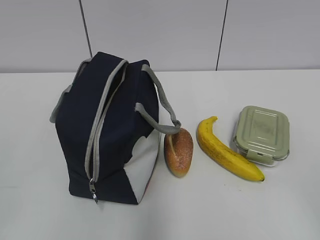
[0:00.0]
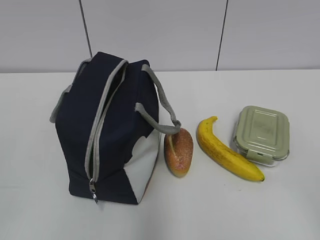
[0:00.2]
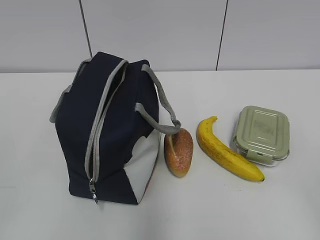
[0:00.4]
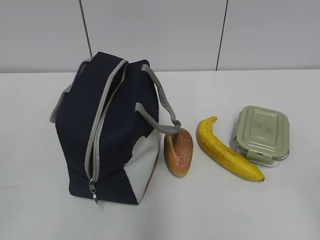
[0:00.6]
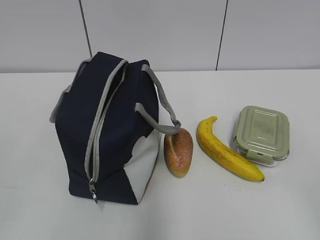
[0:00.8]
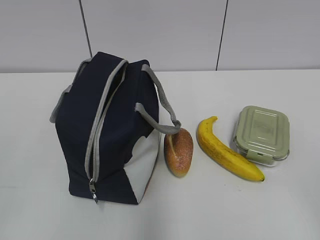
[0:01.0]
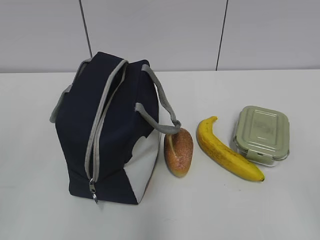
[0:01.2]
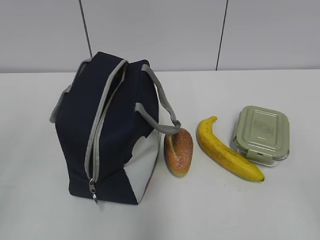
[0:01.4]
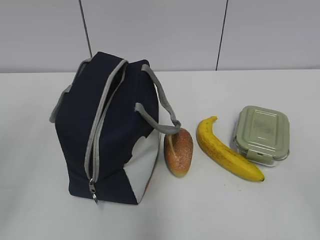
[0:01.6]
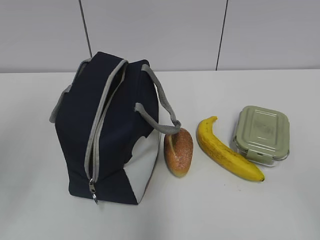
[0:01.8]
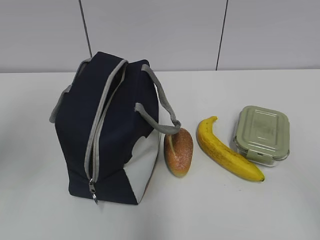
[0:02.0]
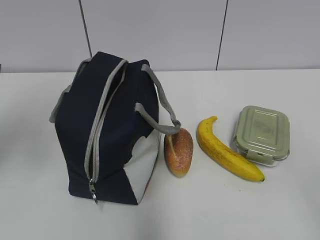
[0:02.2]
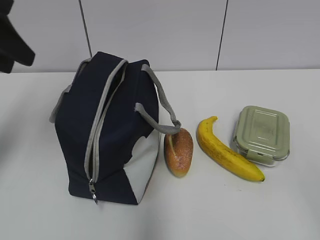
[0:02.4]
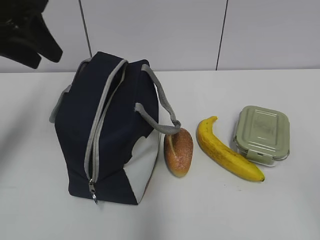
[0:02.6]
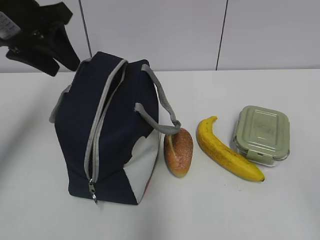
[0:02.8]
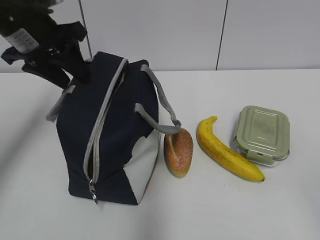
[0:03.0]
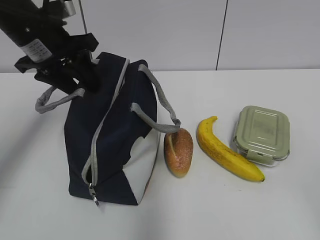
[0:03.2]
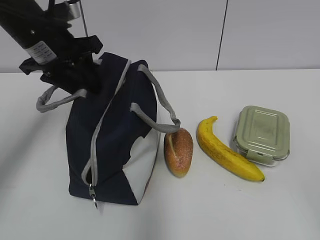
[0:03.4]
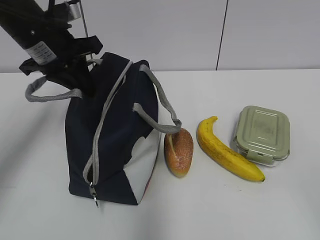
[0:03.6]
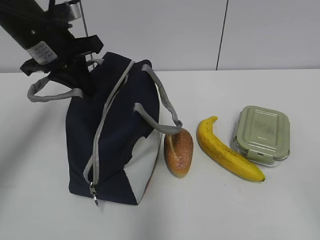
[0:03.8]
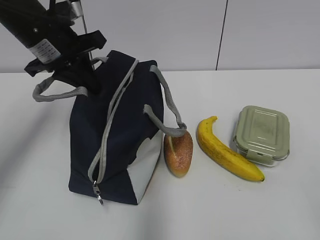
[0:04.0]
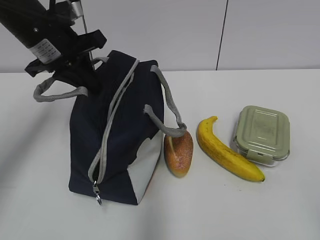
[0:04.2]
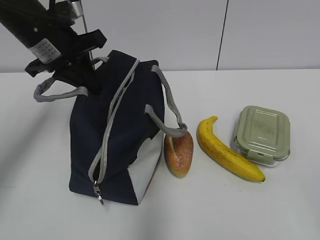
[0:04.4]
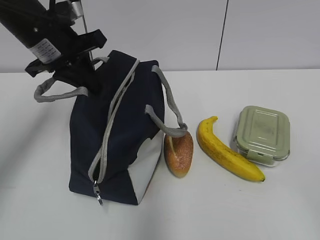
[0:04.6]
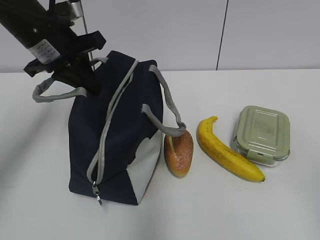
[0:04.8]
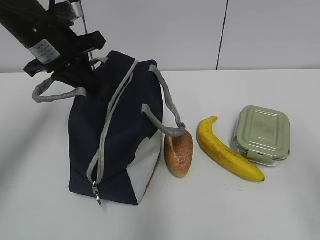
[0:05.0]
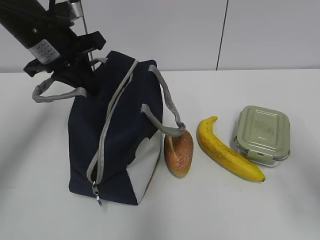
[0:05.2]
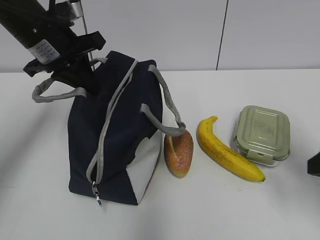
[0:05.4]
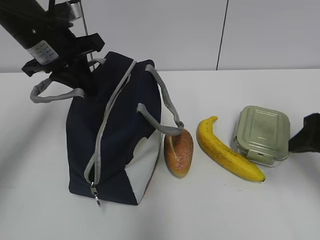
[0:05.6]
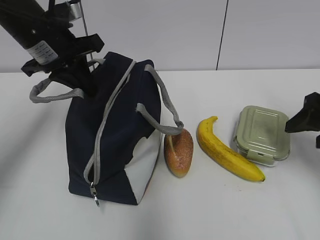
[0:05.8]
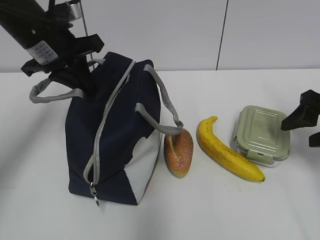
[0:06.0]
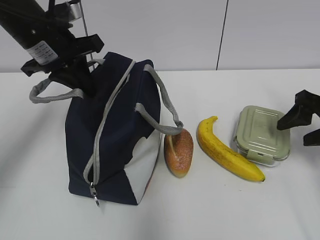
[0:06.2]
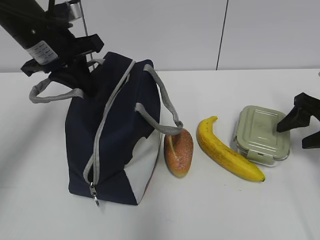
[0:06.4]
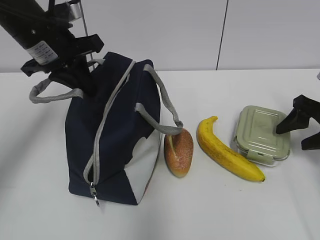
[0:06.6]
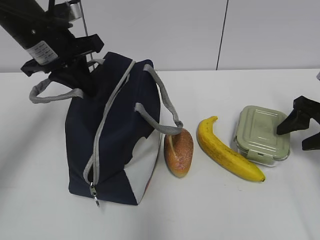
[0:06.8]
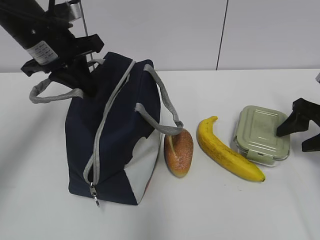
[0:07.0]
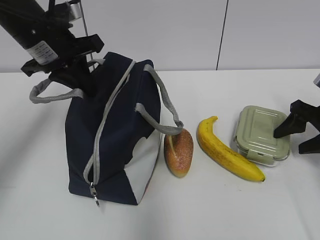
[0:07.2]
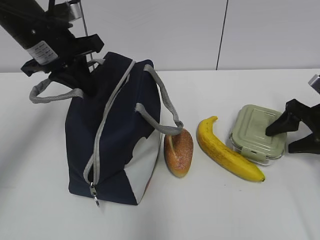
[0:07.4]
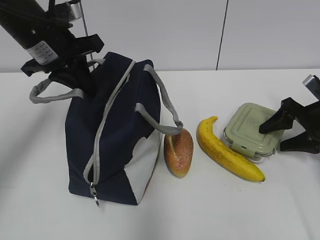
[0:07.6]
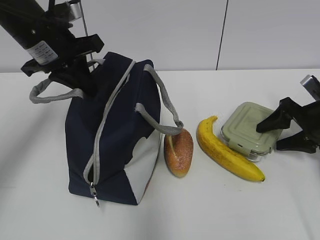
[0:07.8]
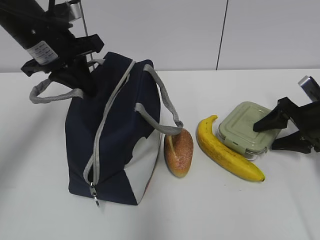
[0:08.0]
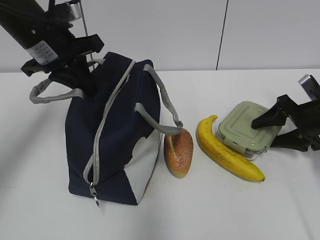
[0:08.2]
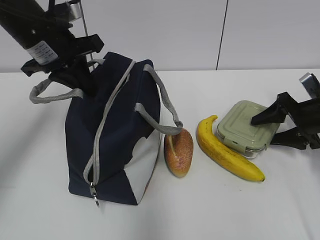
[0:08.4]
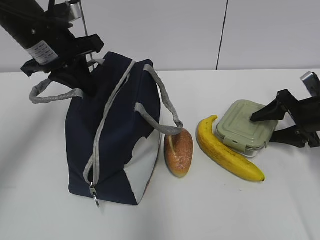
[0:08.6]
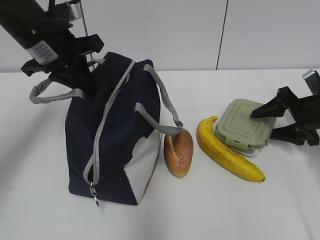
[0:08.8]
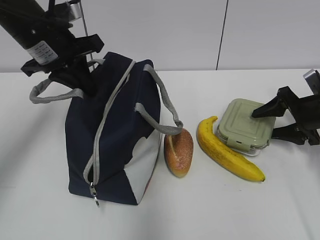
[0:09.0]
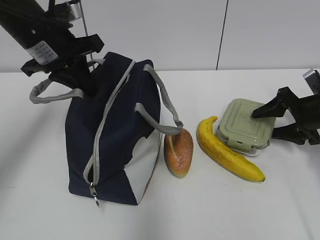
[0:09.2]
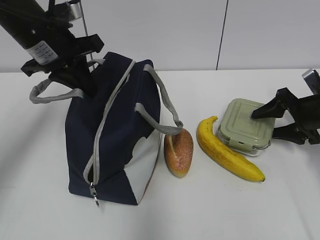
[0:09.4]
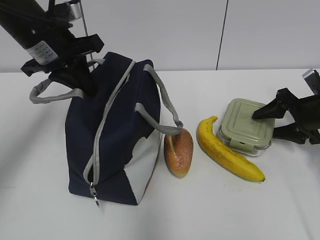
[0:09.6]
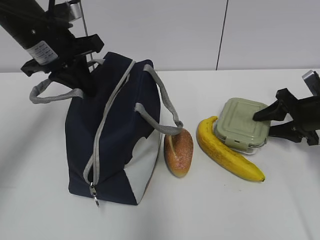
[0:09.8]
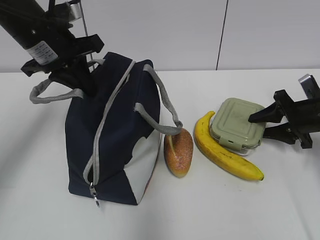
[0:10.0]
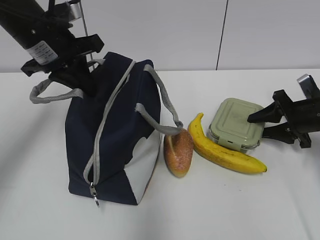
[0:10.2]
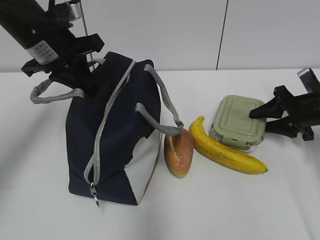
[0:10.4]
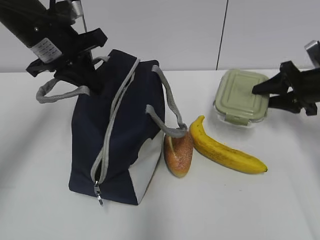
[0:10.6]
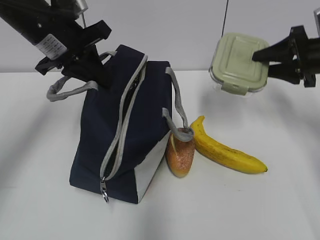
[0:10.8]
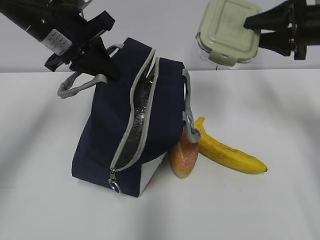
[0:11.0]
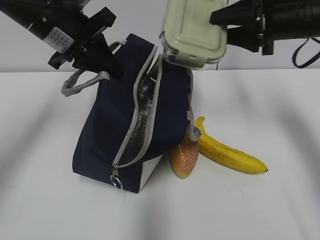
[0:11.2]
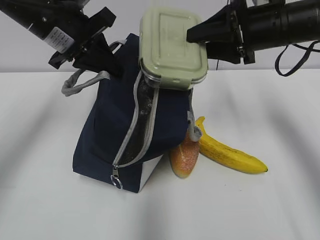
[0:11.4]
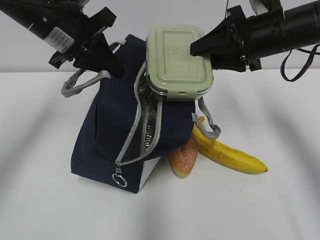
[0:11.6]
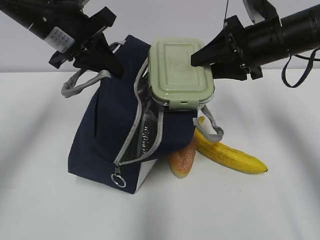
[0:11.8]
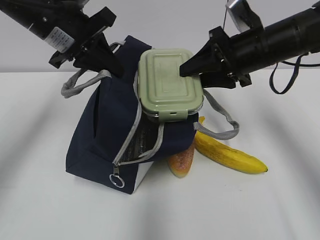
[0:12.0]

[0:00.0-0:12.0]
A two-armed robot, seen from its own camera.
Step, 0:00.0 to 0:10.2: Grab the lunch box with your right hand.
0:01.6 to 0:03.0: The left gripper shifts about 30 cm forward.
0:03.0 to 0:04.4: The left gripper closes up.
0:04.4 to 0:06.0: The right gripper is displaced forward by roughly 30 cm.
0:06.0 to 0:07.6: The right gripper heads downward and forward, covering approximately 10 cm.
0:07.6 to 0:10.4: There are only small adjustments of the grippers.
0:10.4 to 0:12.0: The right gripper moves to the left and upward, roughly 20 cm.

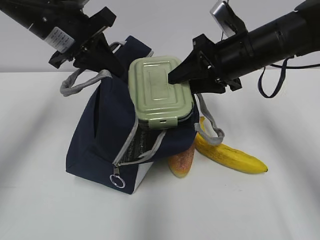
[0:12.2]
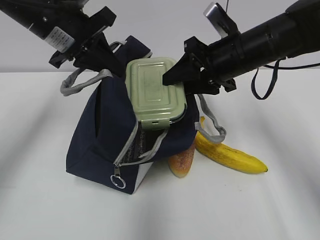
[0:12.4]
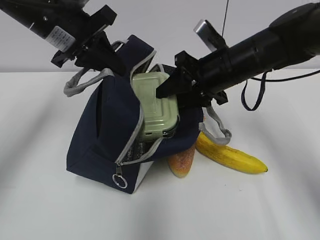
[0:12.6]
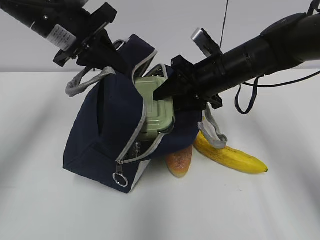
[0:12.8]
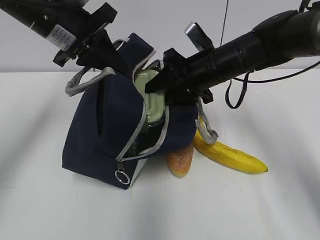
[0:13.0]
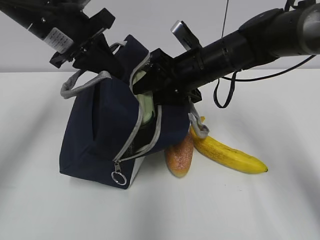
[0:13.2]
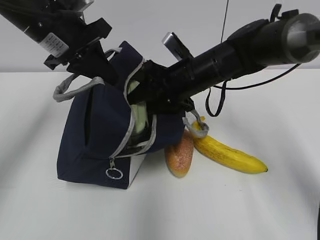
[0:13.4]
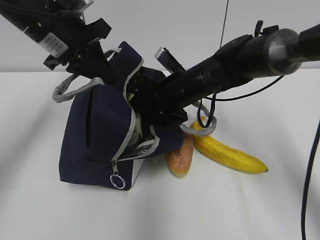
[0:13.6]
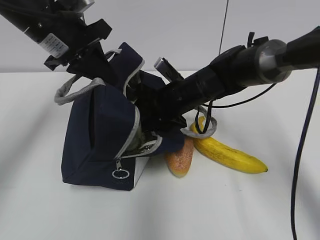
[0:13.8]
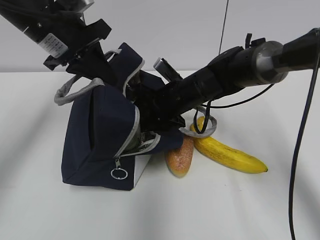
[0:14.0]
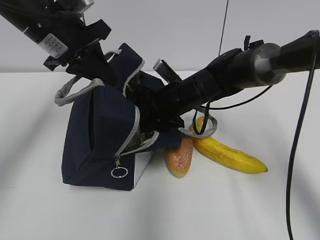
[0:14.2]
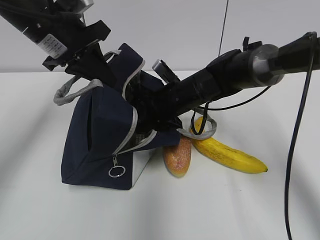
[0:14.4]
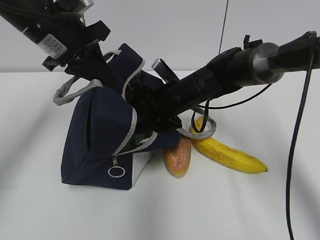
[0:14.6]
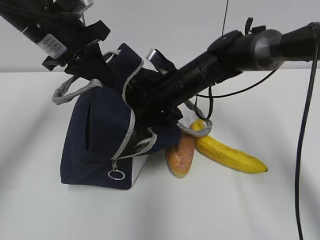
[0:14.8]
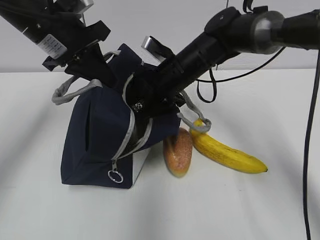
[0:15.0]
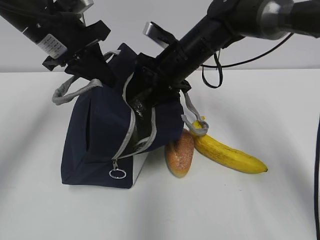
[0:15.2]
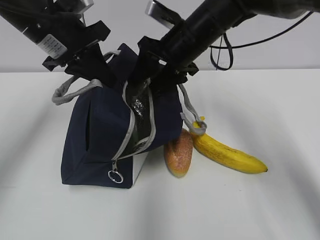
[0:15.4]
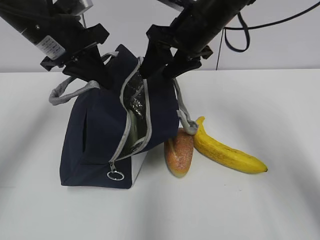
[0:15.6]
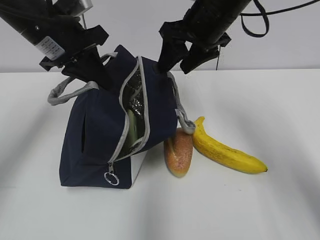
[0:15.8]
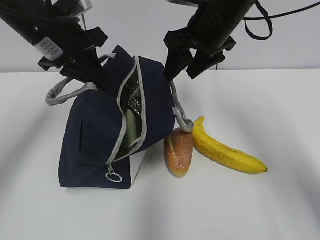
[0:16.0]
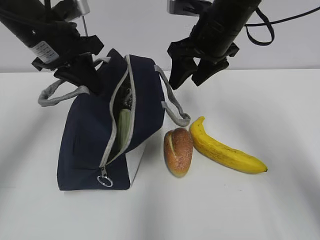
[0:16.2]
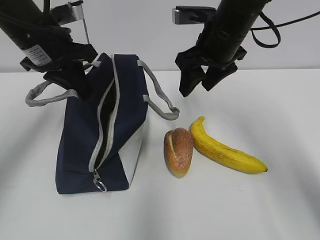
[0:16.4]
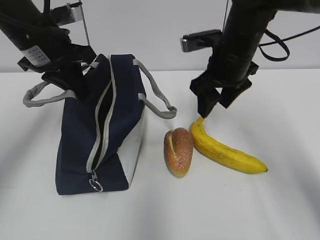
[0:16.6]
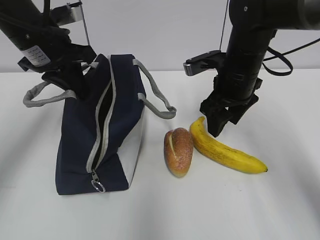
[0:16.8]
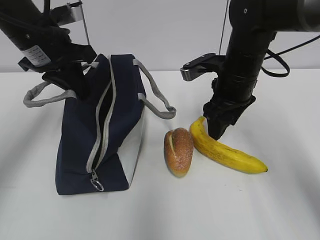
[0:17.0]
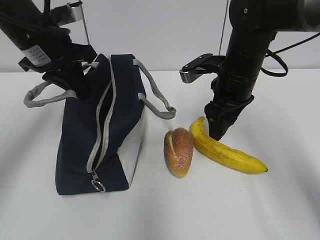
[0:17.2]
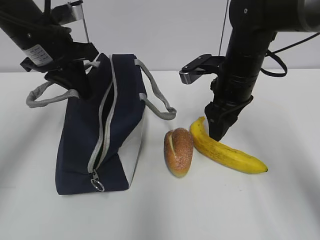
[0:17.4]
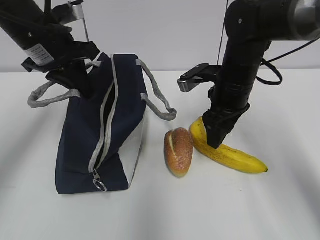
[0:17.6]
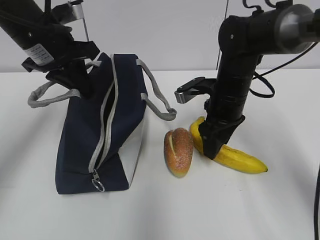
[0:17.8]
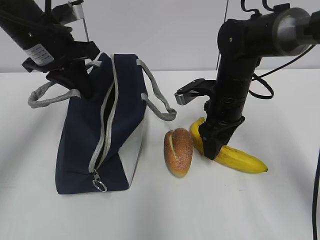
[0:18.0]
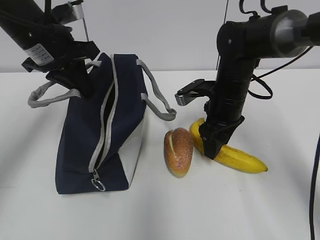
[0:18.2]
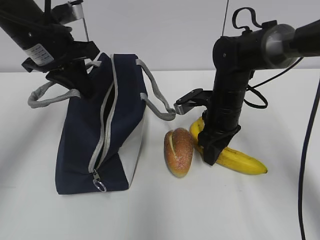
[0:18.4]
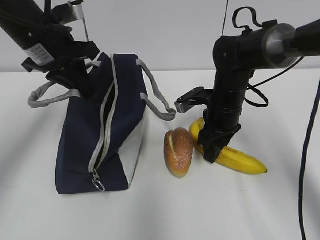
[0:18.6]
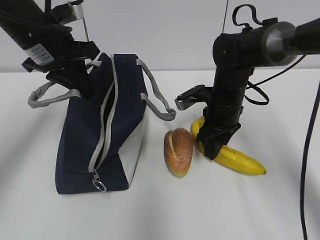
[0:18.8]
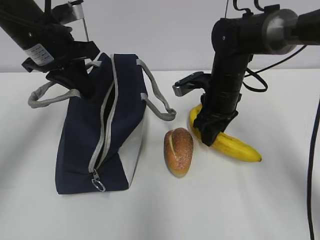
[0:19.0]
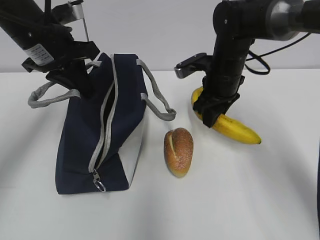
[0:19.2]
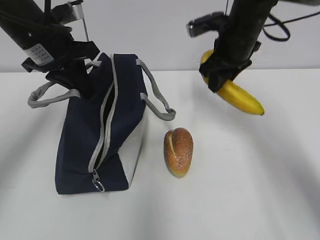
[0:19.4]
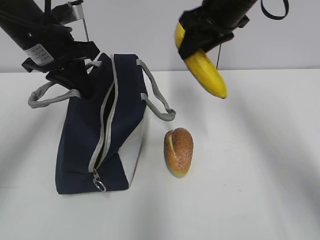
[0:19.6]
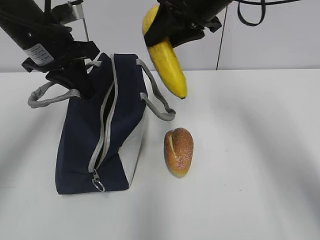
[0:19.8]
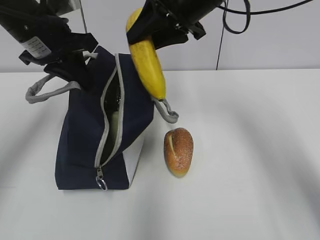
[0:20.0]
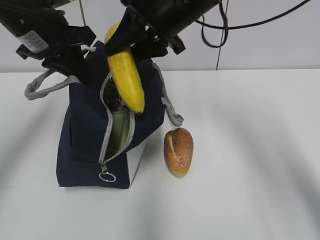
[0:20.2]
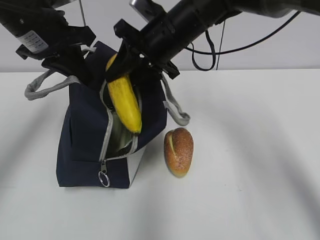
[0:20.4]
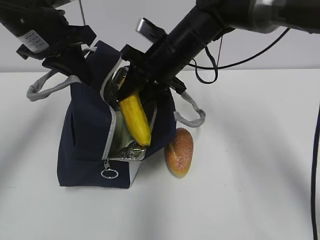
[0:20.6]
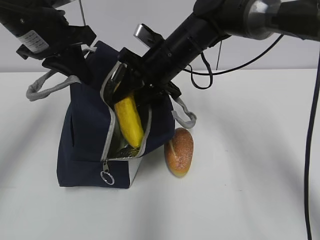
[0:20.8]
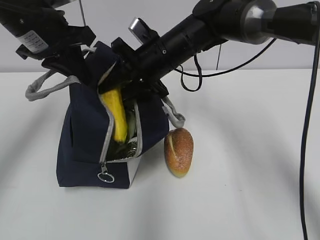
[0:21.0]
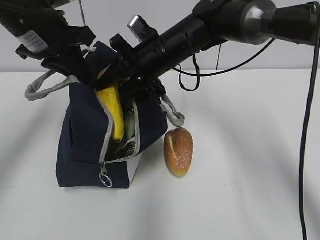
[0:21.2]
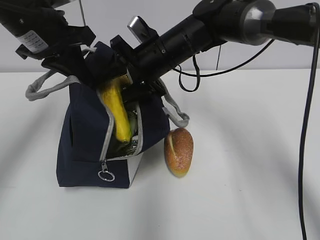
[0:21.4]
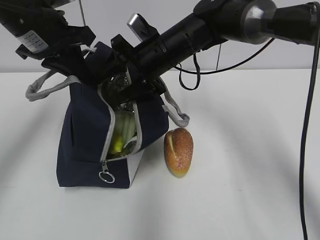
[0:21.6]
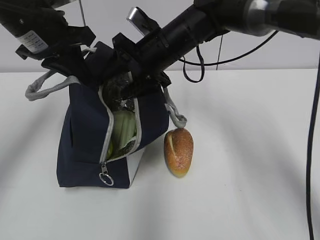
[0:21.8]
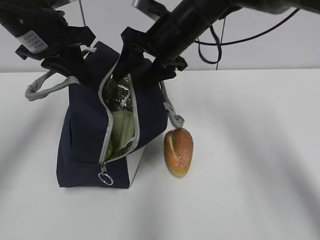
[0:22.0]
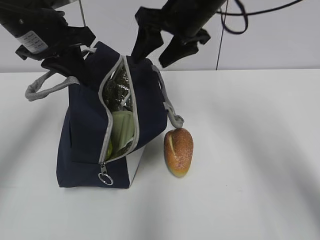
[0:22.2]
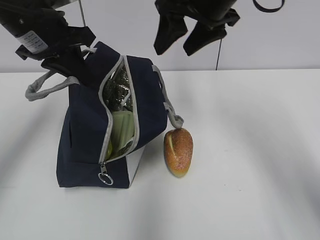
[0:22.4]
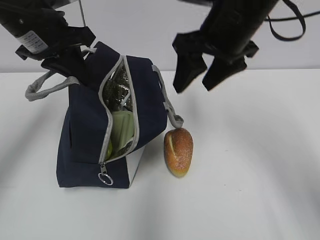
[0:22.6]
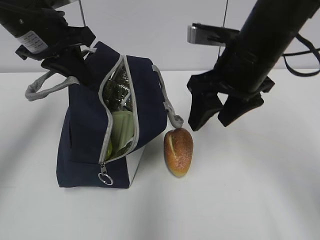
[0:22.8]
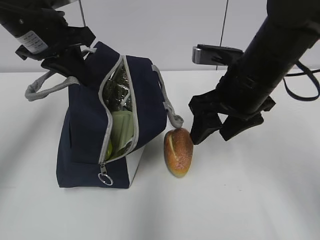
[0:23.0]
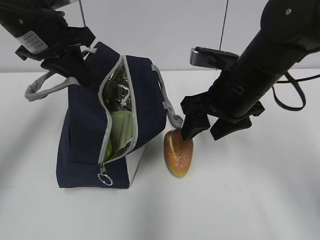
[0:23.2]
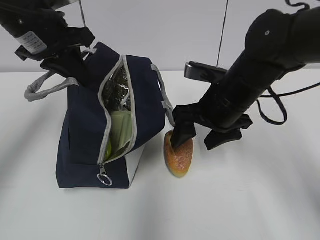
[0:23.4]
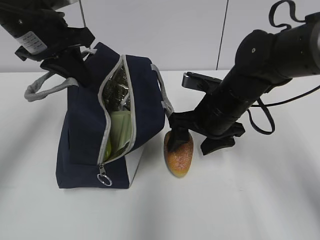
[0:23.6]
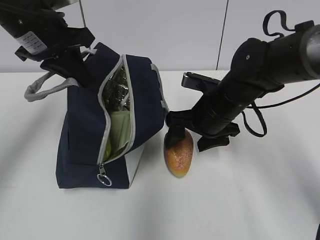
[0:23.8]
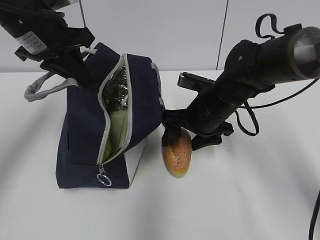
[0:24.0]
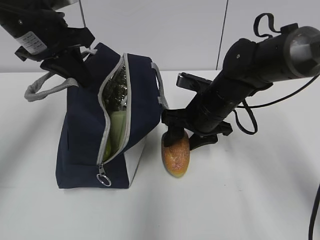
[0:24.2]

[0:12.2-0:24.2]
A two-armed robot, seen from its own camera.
Step, 0:12.2 to 0:14.6: Place it into the bag with your right hand.
Step, 0:14.8 to 0:18.6: Grab the banana with your right hand.
Step, 0:19.0 to 0:21.4: Place it into the bag with your right hand.
0:12.2 to 0:13.8: The right gripper shifts approximately 15 cm downward and to the left.
0:13.8 to 0:15.2: The right gripper goes some 5 cm upward.
0:15.2 to 0:16.6: The right gripper is displaced to the right by approximately 5 cm, and travels upward and back again, some 10 cm each way.
0:16.6 to 0:18.2: The right gripper is displaced downward by roughly 10 cm.
0:18.2 to 0:19.8: The right gripper goes roughly 20 cm upward.
0:19.8 to 0:21.2: The right gripper is displaced downward and to the left by some 15 cm.
0:21.2 to 0:22.6: The right gripper goes approximately 15 cm upward, to the right and backward, and opens up.
0:22.6 to 0:24.2: The right gripper heads downward, covering about 15 cm.
